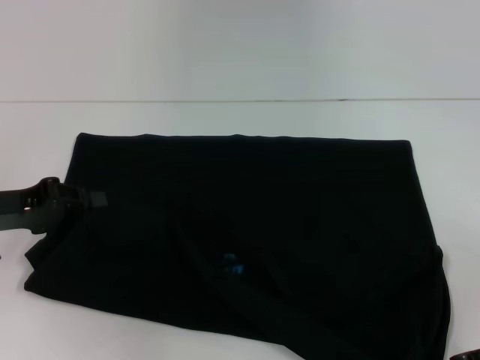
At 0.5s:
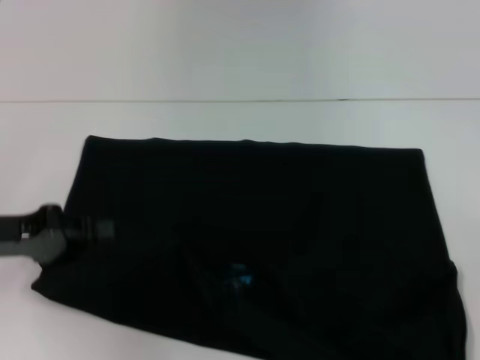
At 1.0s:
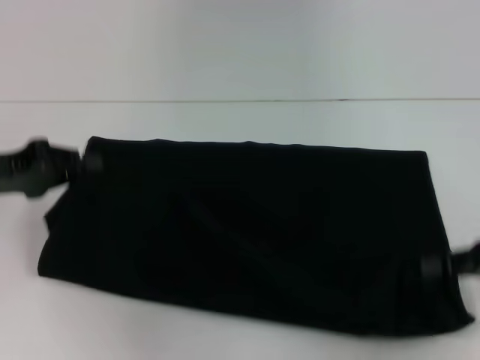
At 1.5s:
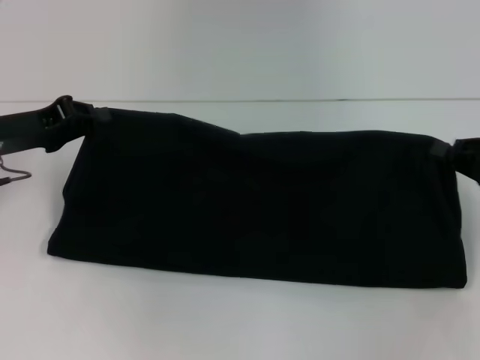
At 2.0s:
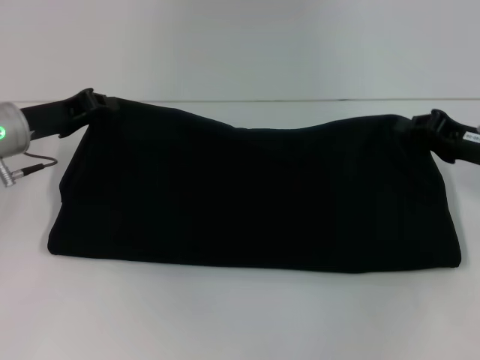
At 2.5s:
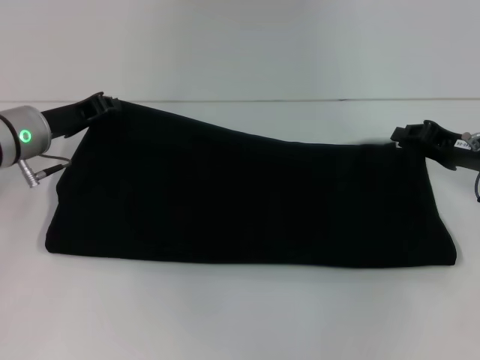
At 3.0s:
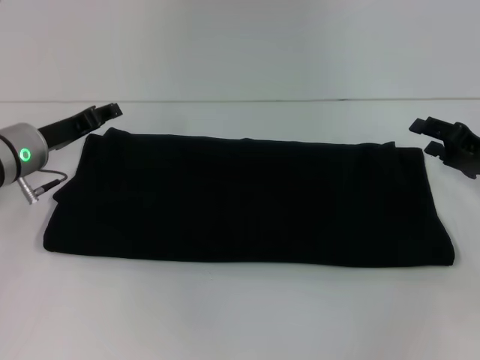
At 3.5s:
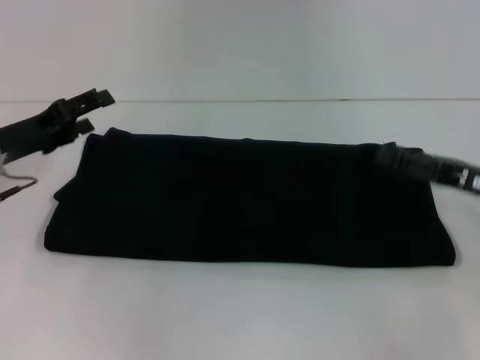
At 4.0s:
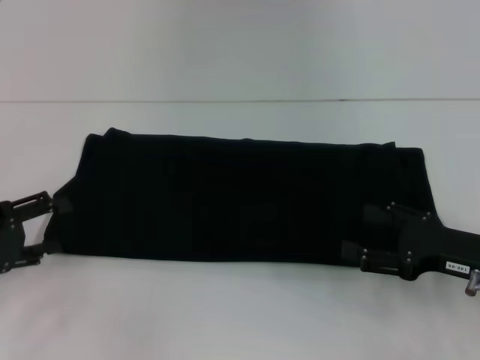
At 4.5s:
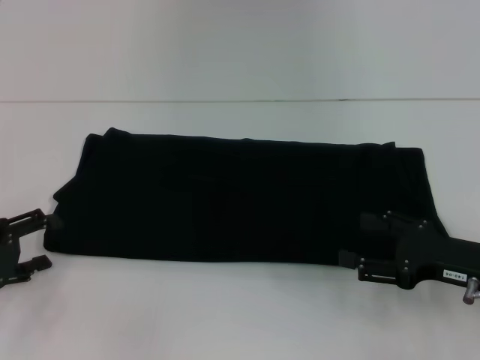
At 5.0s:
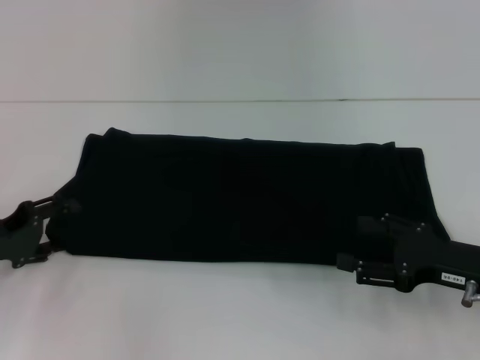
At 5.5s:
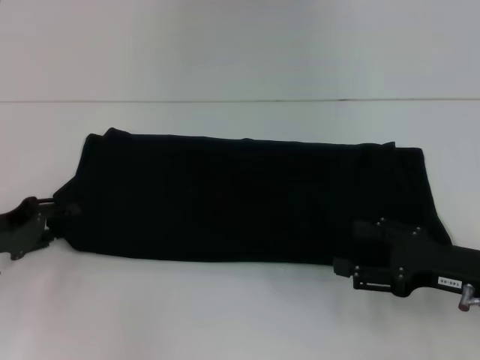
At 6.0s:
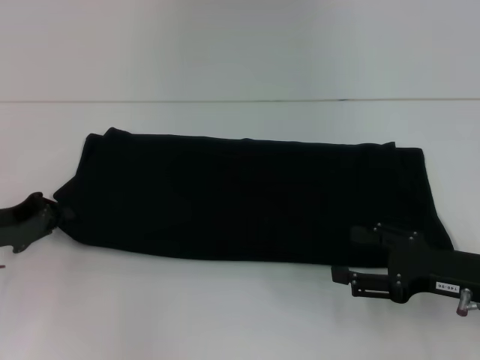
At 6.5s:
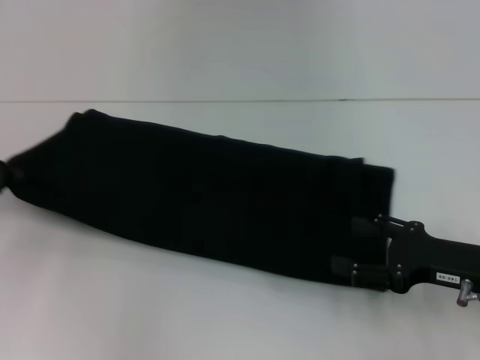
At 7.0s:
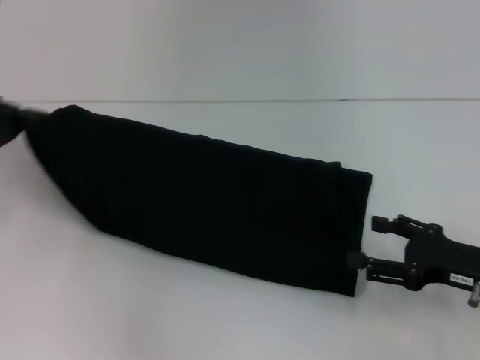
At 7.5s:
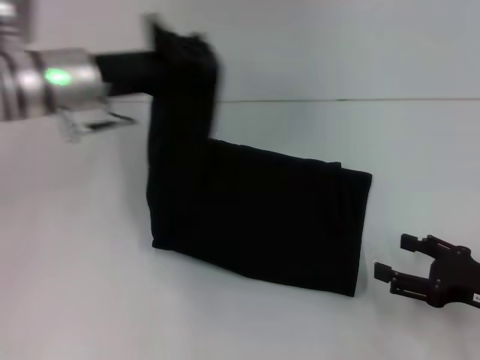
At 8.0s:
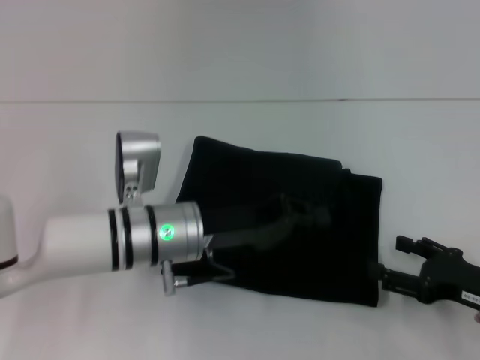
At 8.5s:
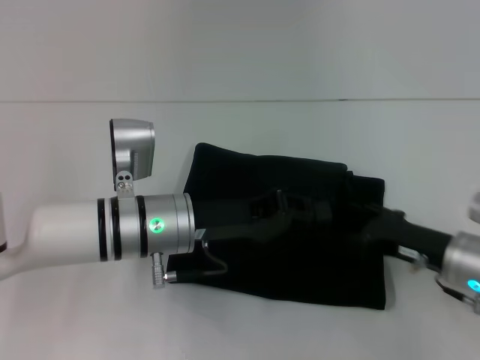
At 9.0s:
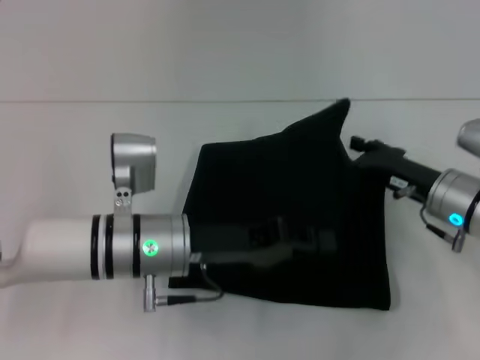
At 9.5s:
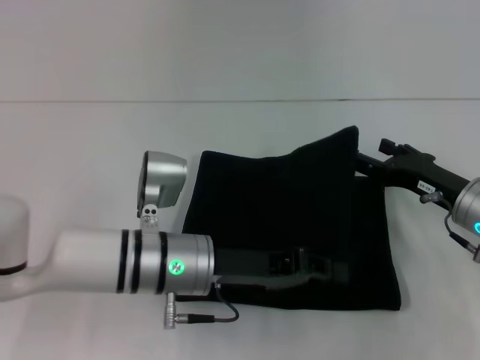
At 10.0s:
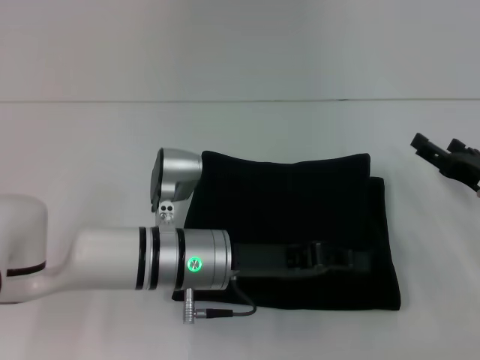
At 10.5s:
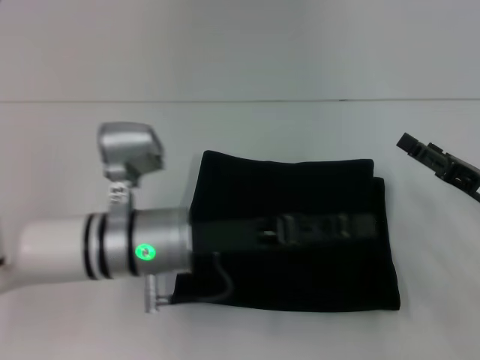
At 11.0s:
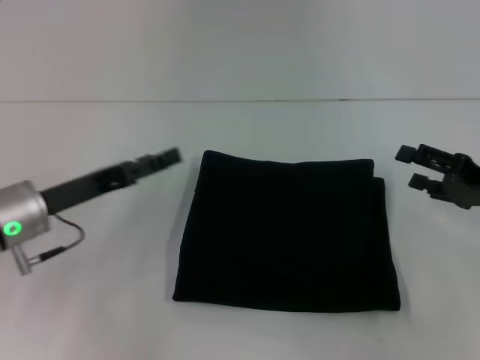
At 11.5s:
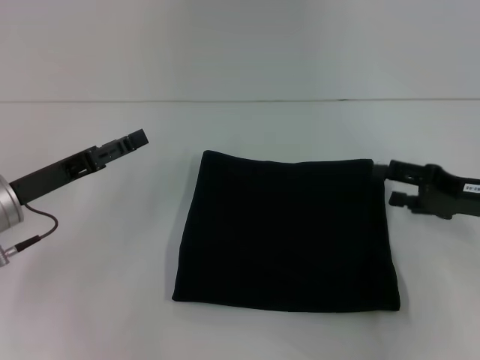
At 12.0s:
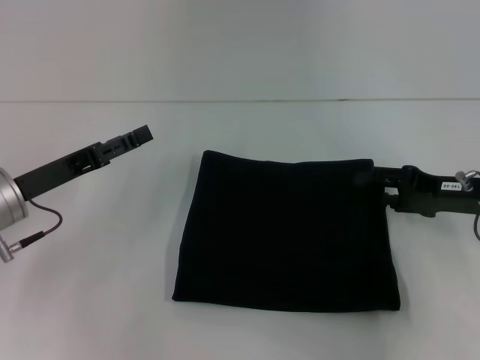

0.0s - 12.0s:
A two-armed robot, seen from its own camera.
Step, 0.0s - 2.5s: Fold the clothes with your right hand.
Step, 0.0s - 10.0s: Fold the clothes with your left hand.
0.0s - 2.0s: Both grippers travel together forward, some 10 cm.
2.0s - 4.0s: The right gripper goes approximately 10 cm backward, and opens up, while the left gripper goes about 15 cm backward and to the left, and opens its fingers.
4.0s - 6.0s: The left gripper changes place by roughly 5 cm, and closes its fingers.
6.0s - 8.0s: The left gripper goes about 25 cm to the right.
8.0s - 10.0s: The right gripper shifts some 10 cm forward.
10.0s - 12.0s: The left gripper is displaced to the left by approximately 20 cm, and opens up. The right gripper ends up roughly 5 cm from where it was.

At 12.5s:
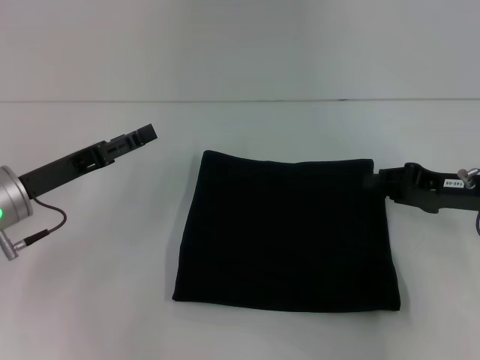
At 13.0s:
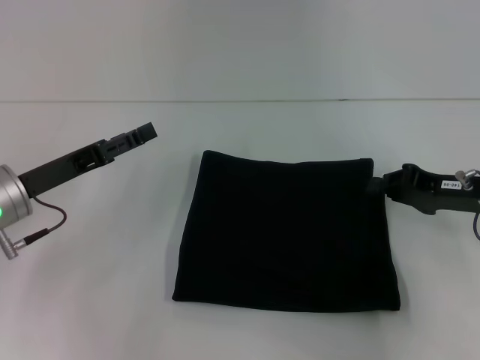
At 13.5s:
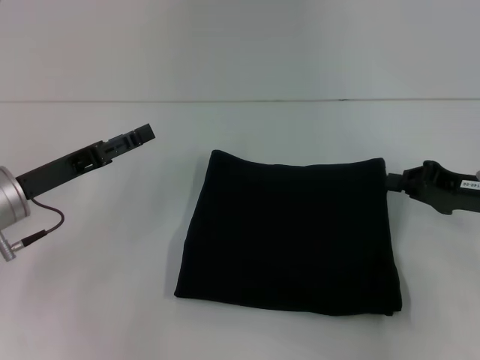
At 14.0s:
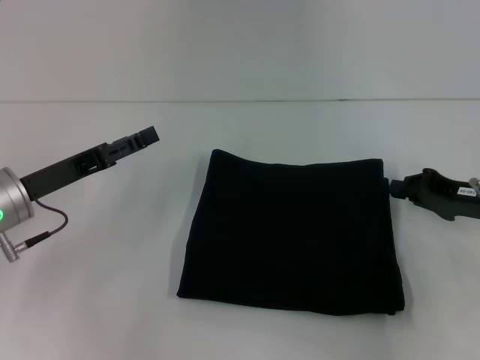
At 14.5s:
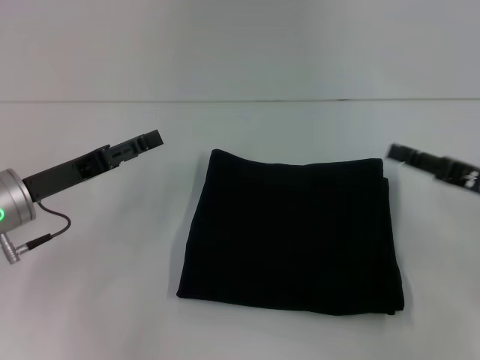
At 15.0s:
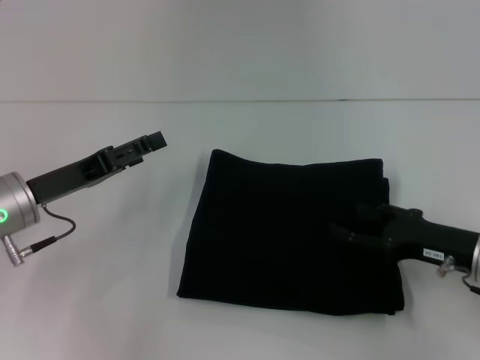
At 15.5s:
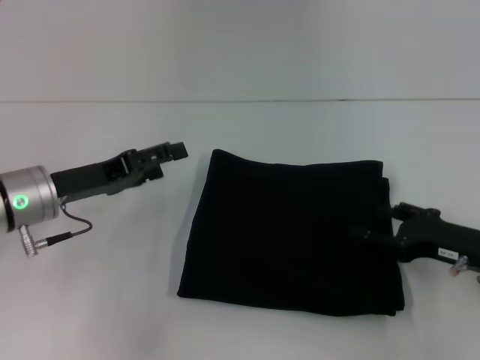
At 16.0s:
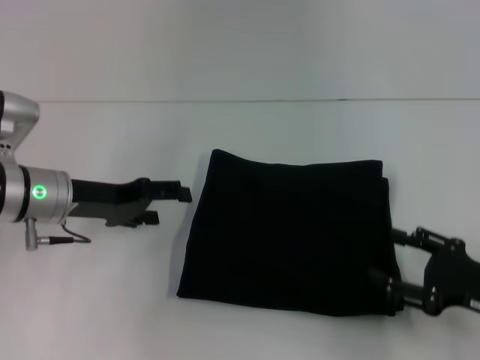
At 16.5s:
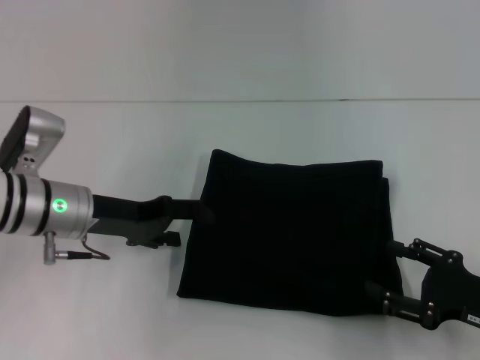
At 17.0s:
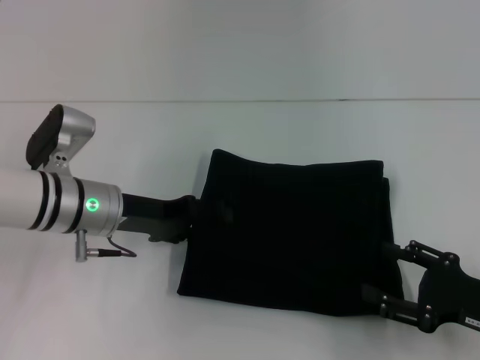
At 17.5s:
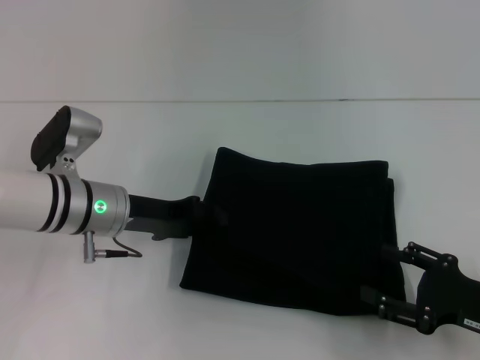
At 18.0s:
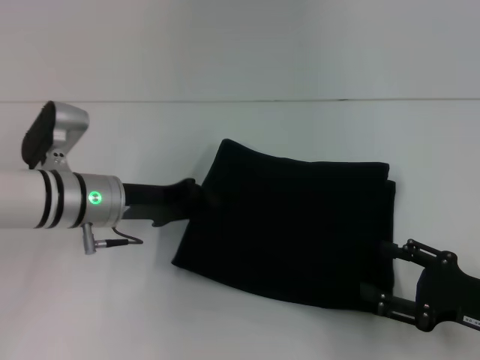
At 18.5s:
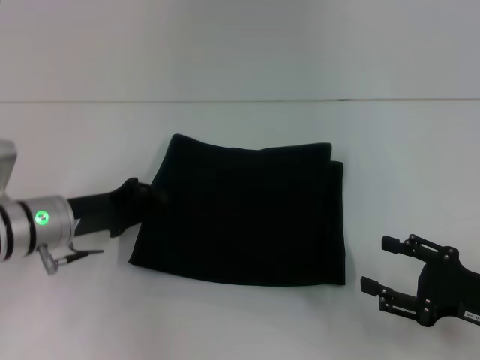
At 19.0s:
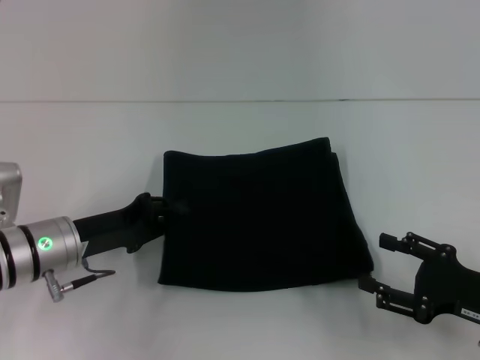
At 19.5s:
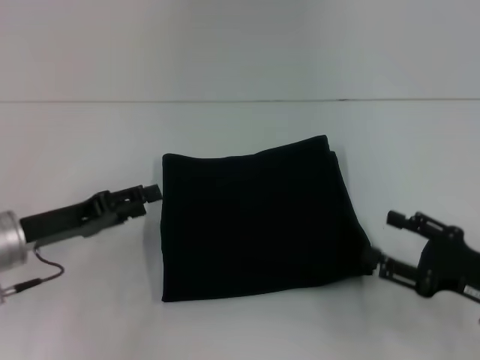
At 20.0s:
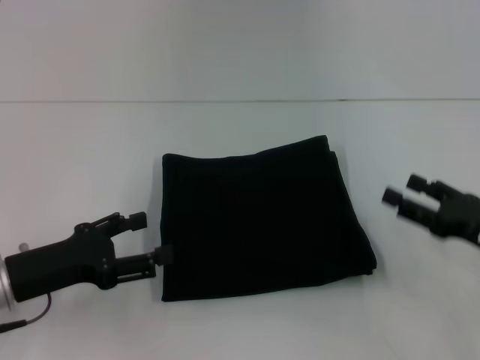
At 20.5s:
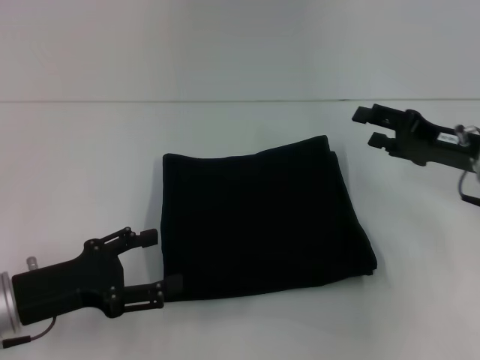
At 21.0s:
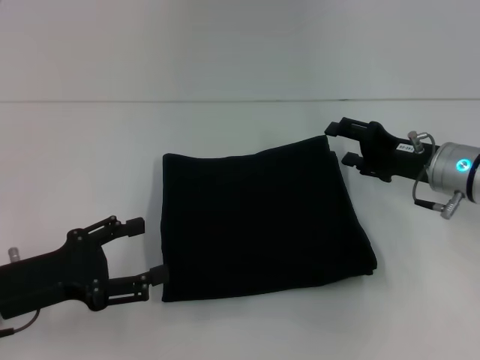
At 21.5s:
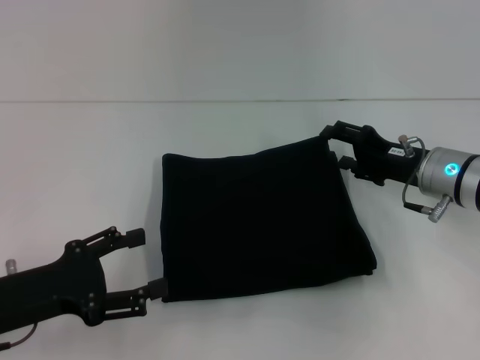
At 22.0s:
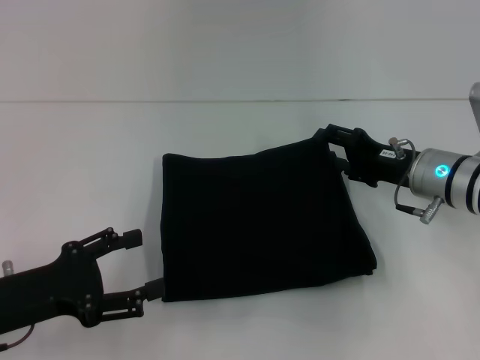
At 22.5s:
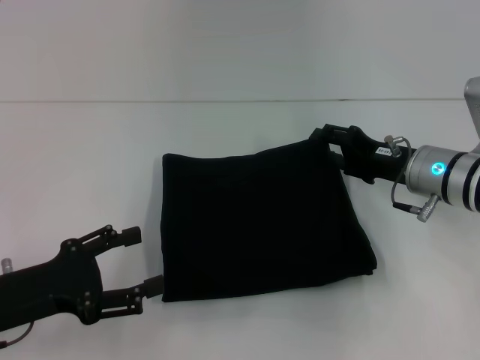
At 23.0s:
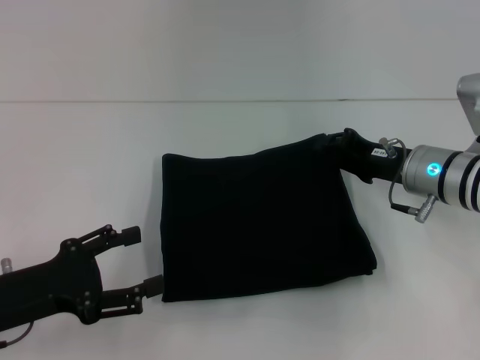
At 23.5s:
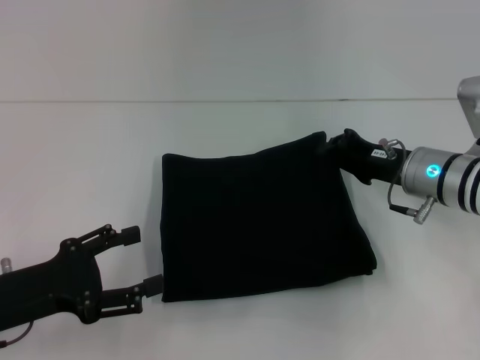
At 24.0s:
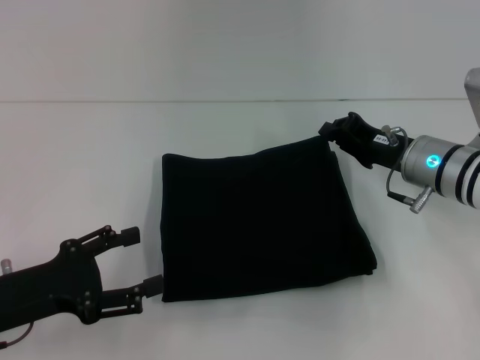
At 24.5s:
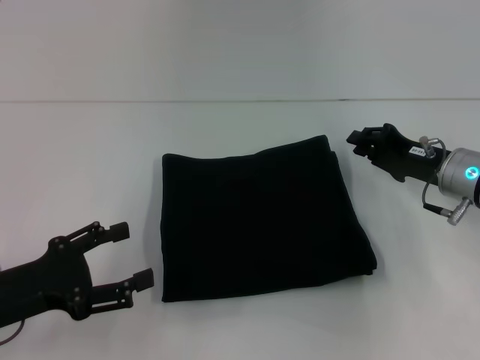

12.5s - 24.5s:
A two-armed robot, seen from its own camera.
12.5s - 14.5s: The right gripper closes and opens again.
14.5s - 16.5s: The left gripper shifts by about 5 cm. Meanwhile the right gripper travels backward and downward by approximately 10 cm, and opens up.
16.5s - 18.5s: The left gripper closes.
18.5s - 20.5s: The left gripper travels backward by approximately 10 cm, and opens its fingers, while the right gripper is displaced forward and upward by some 15 cm.
20.5s - 22.5s: The right gripper travels to the left by approximately 5 cm.
22.5s - 24.5s: The right gripper closes.

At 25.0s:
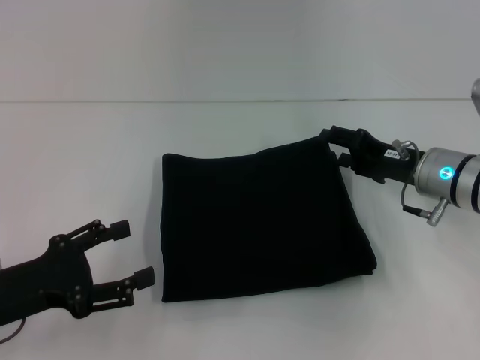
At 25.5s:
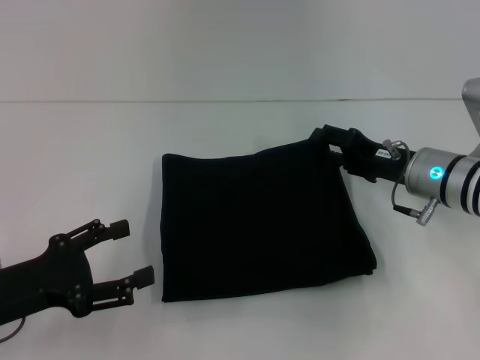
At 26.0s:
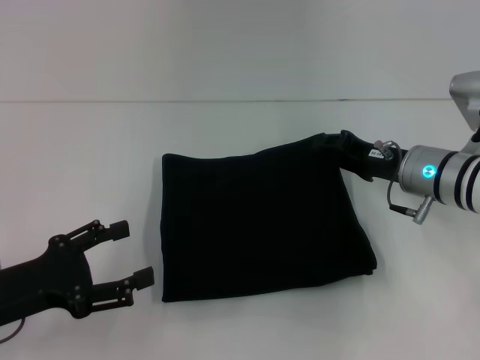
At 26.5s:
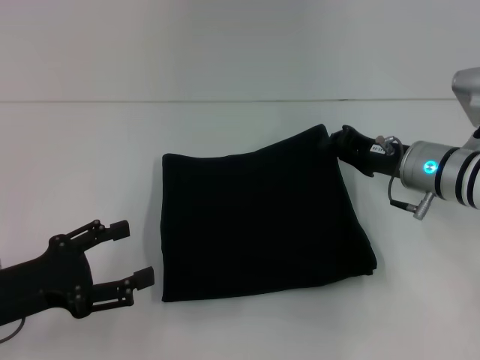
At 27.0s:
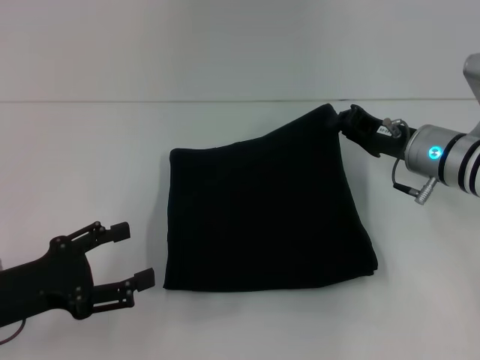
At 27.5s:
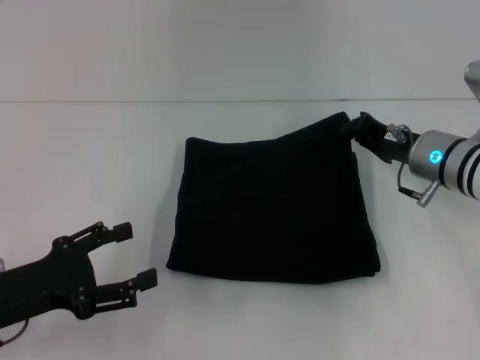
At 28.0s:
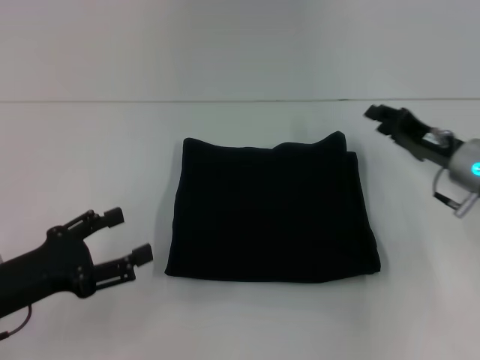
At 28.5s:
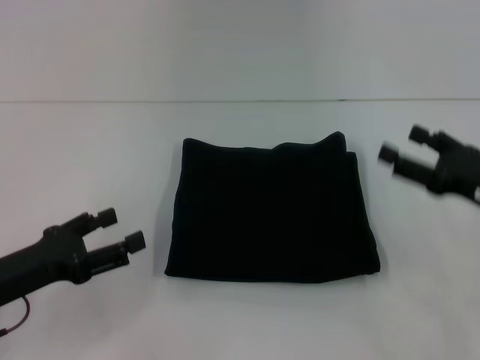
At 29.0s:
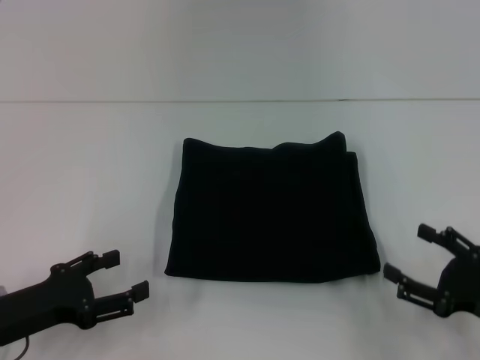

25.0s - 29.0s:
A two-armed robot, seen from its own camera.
25.0s - 27.0s: The right gripper closes up.
27.0s - 29.0s: The right gripper shifts approximately 20 cm backward and to the right, and opens up.
